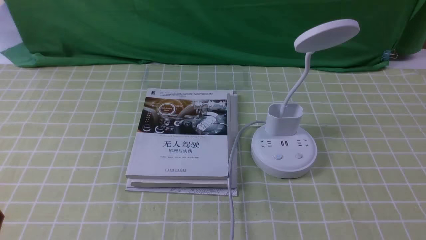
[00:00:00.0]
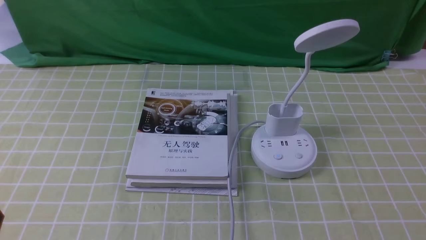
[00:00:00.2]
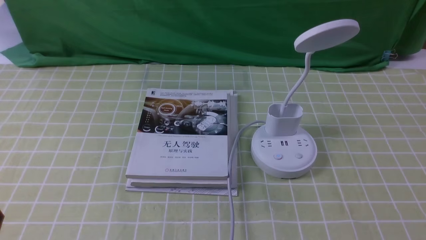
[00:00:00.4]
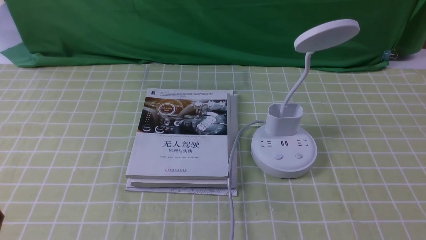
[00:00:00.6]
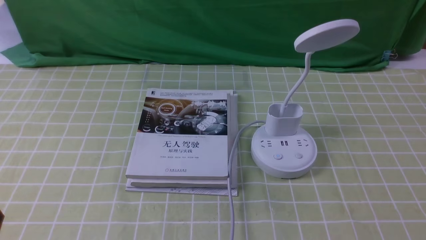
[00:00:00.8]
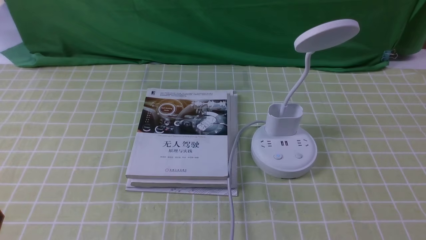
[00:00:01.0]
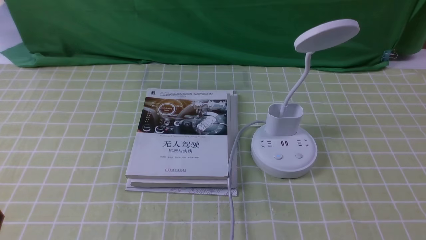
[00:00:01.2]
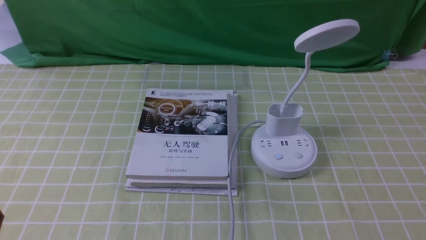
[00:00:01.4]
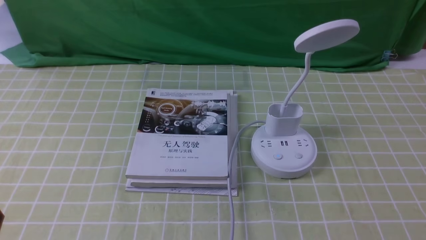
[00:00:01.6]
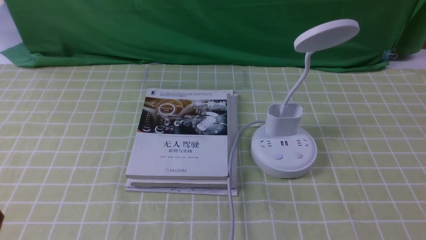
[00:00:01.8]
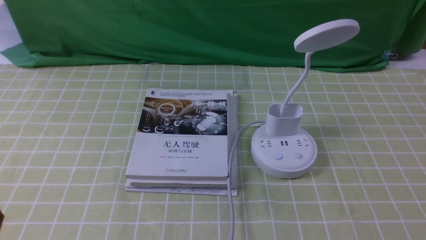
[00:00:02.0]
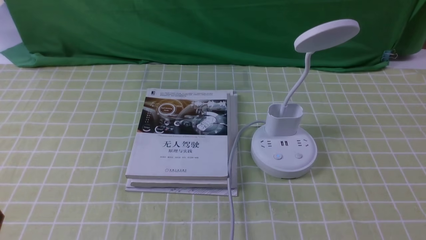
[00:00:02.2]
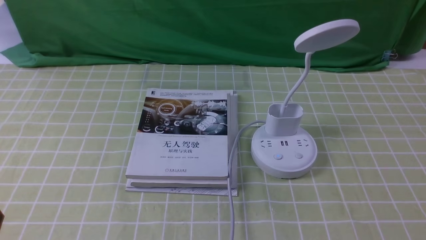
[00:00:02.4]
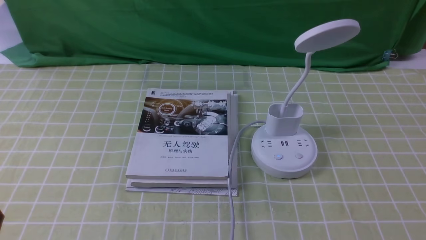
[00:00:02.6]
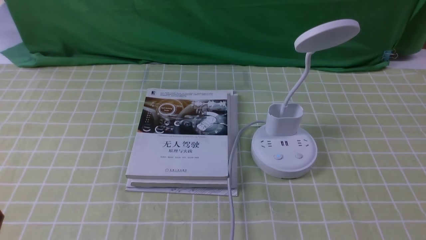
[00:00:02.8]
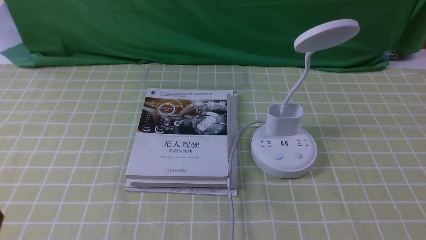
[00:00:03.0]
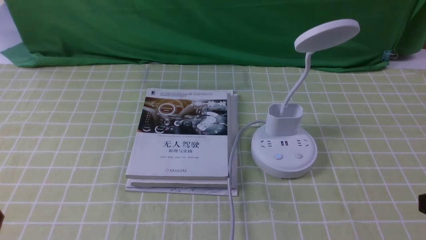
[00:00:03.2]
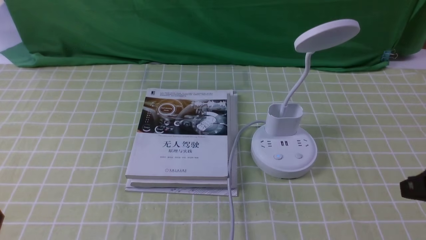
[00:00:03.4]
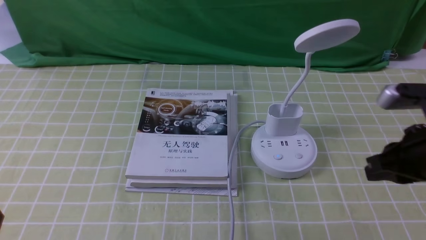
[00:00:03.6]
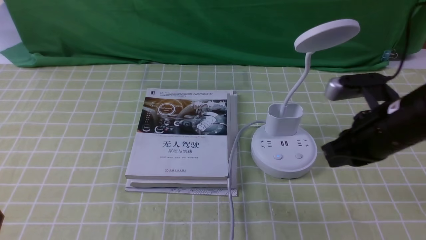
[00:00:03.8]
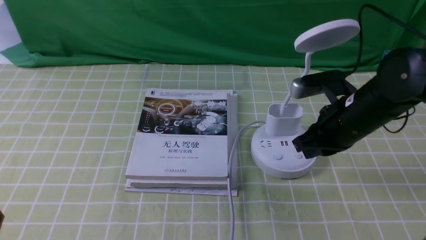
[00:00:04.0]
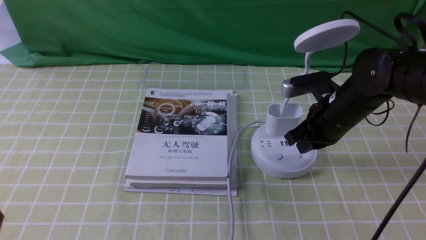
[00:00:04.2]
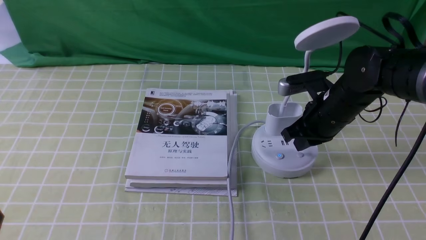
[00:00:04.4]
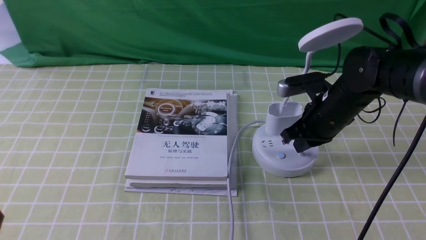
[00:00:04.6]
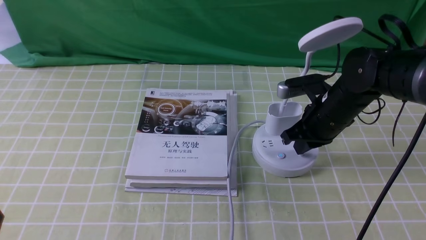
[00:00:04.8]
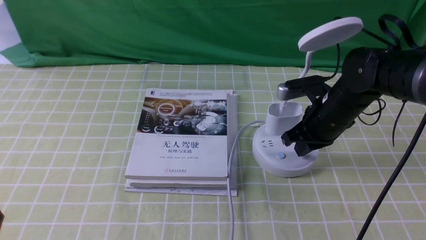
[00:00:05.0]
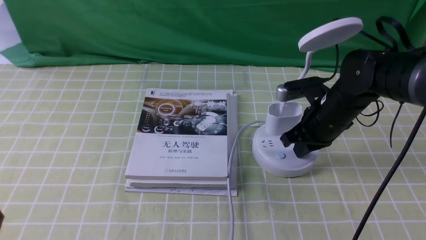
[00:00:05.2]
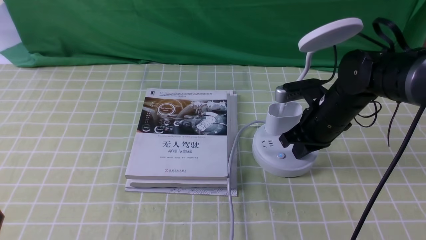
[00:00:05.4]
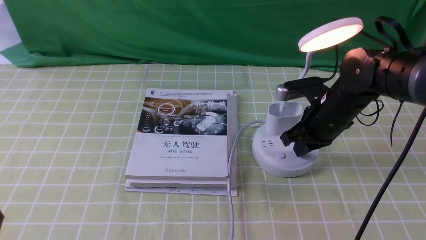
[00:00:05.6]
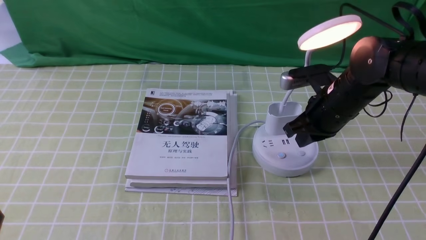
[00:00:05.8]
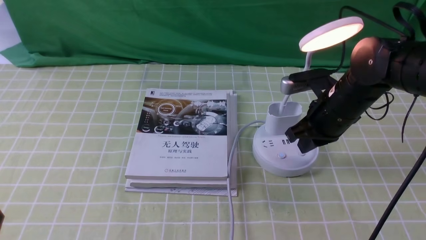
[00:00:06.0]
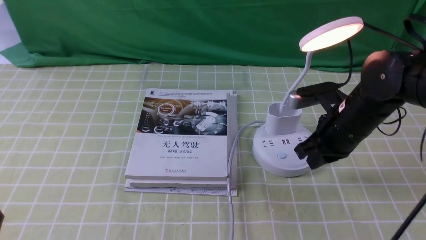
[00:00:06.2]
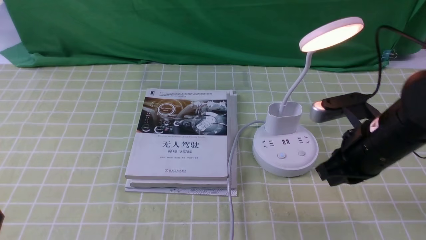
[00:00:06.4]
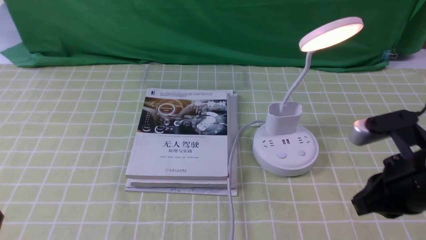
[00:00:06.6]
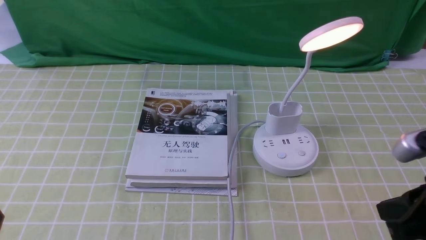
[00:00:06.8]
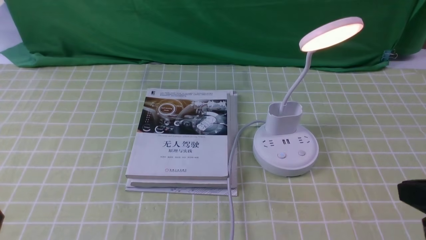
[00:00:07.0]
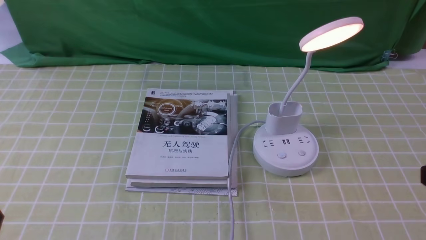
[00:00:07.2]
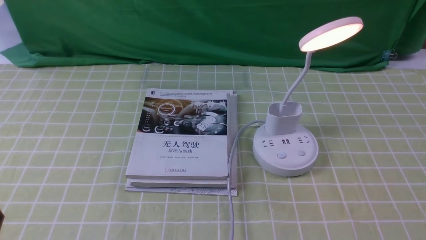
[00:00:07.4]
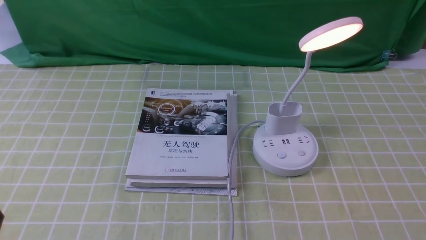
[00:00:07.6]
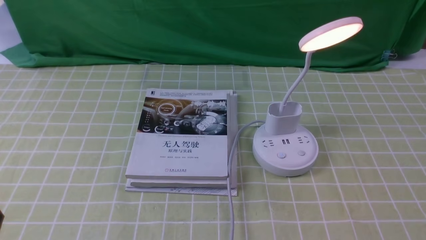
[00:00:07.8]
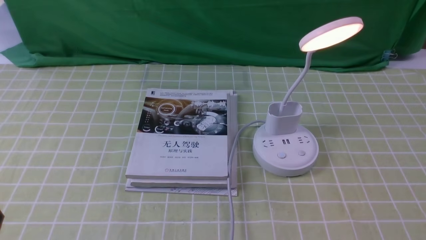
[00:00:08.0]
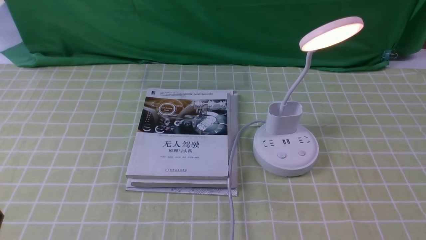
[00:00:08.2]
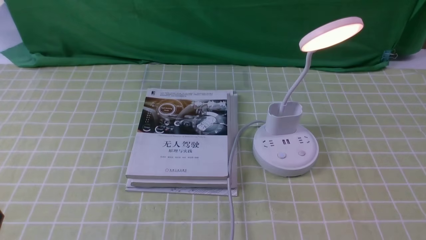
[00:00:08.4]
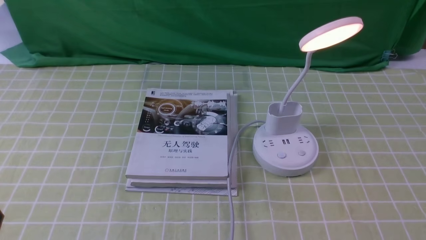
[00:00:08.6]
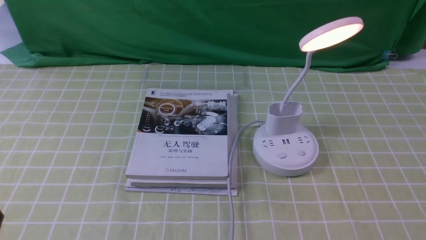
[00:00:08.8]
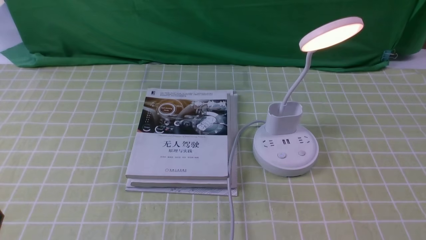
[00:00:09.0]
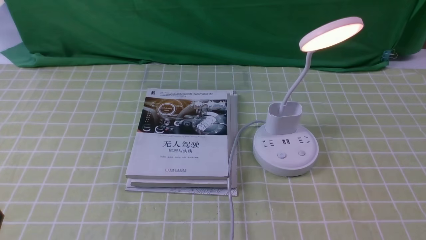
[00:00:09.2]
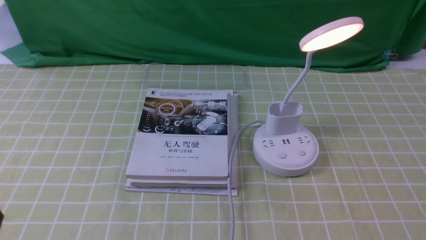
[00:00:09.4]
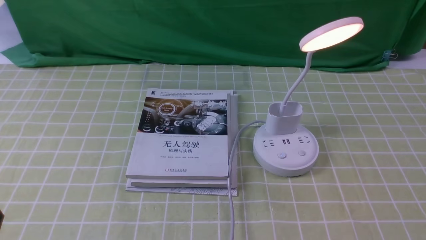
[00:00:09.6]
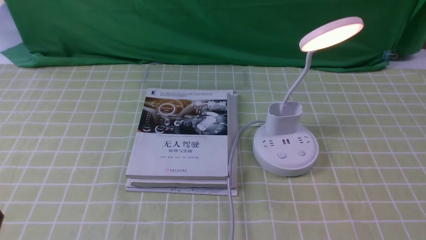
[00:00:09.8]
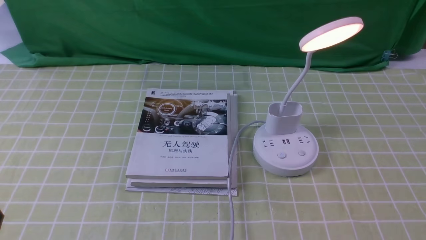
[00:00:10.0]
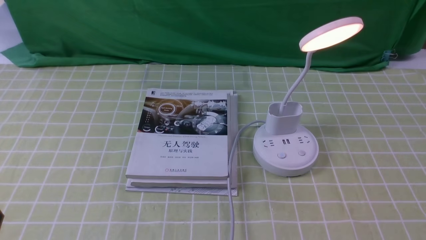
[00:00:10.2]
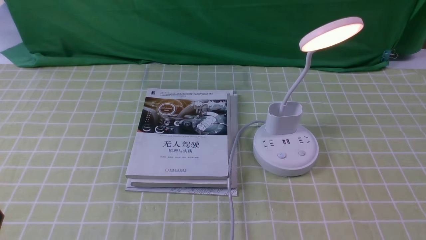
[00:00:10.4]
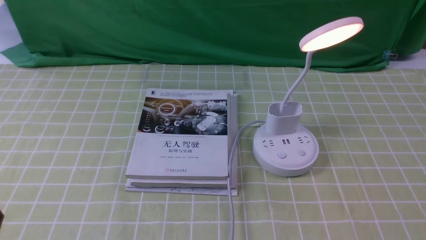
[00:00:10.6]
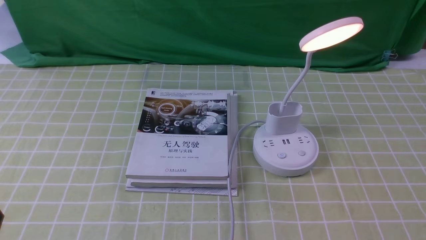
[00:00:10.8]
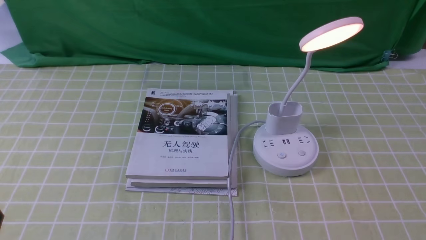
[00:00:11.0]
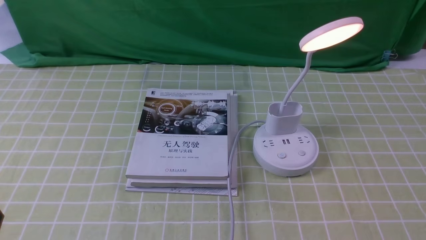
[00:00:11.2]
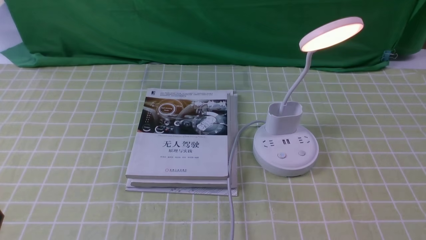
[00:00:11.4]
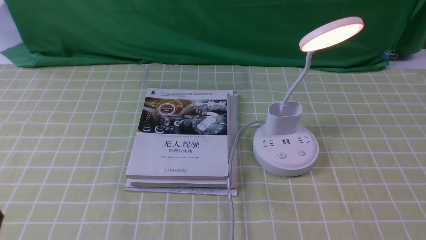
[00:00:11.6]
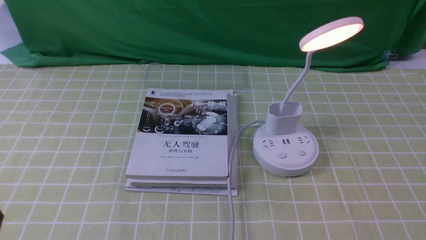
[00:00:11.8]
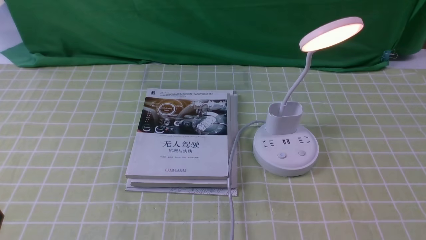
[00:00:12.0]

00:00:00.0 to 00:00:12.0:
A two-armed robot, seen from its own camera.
Step, 00:00:00.0 to 00:00:05.8: use the right arm to press the button switch on the lamp holder.
00:00:00.0 to 00:00:01.6: The two grippers keep their place.
00:00:03.0 to 00:00:04.4: The right gripper is displaced forward and to the left by approximately 30 cm.
00:00:04.4 to 00:00:06.0: The grippers make only small movements.
00:00:06.0 to 00:00:07.6: The right gripper moves backward and to the right, roughly 30 cm.
00:00:10.4 to 00:00:12.0: Neither gripper changes place.
